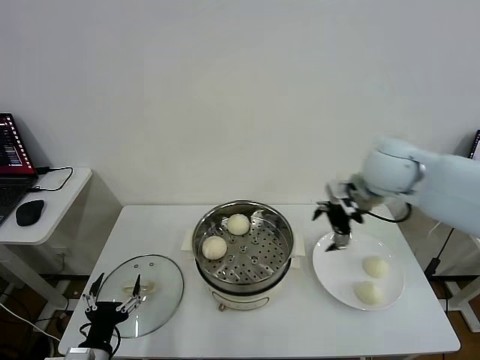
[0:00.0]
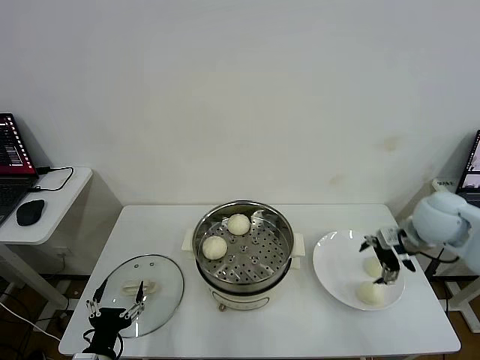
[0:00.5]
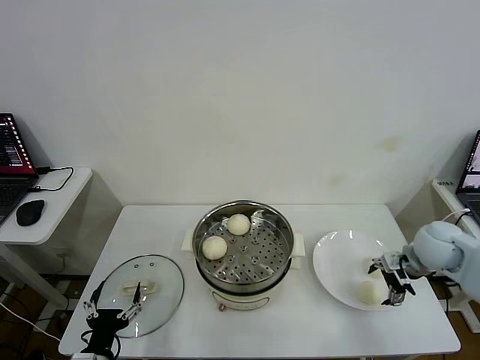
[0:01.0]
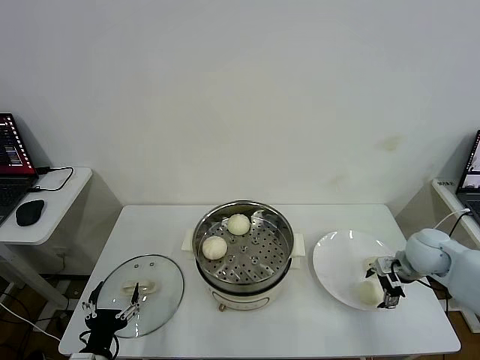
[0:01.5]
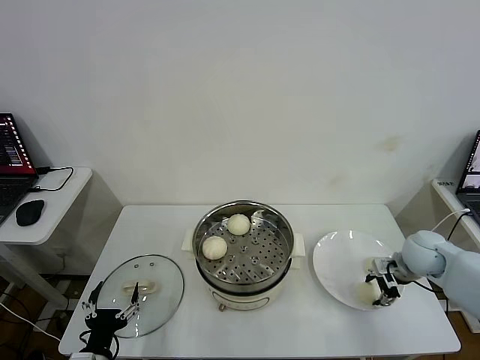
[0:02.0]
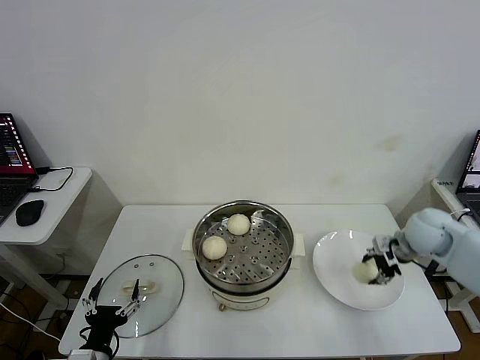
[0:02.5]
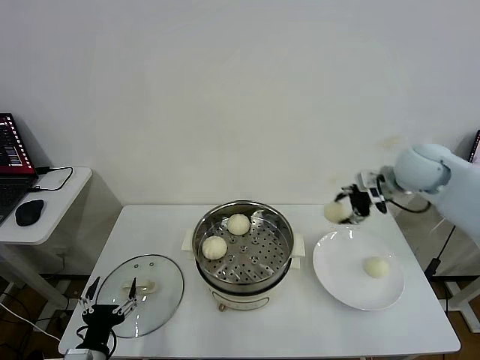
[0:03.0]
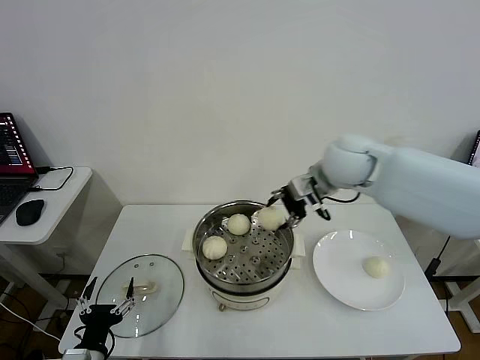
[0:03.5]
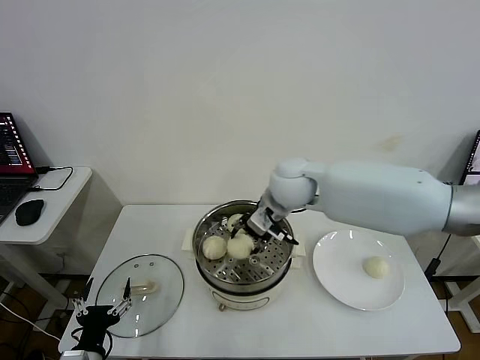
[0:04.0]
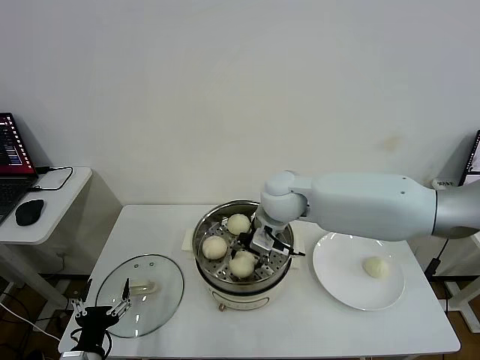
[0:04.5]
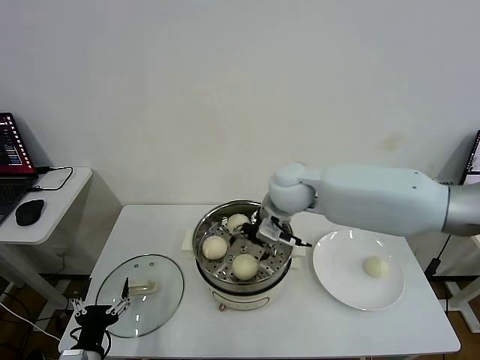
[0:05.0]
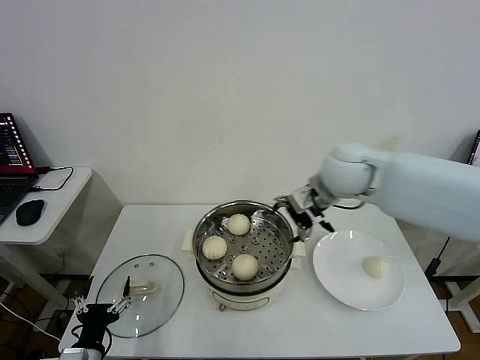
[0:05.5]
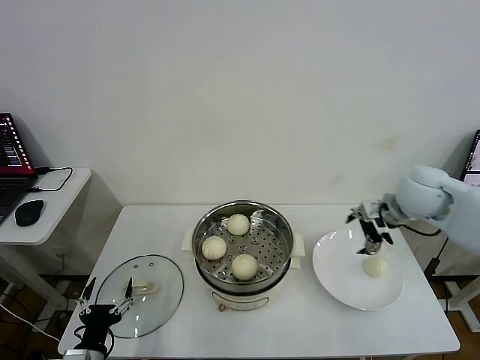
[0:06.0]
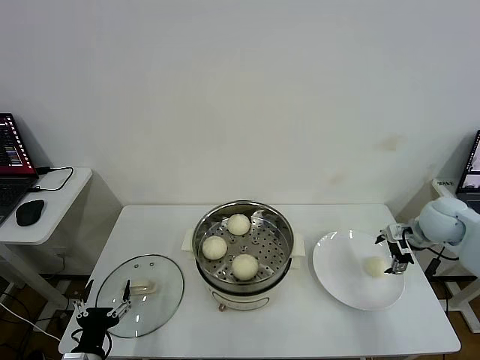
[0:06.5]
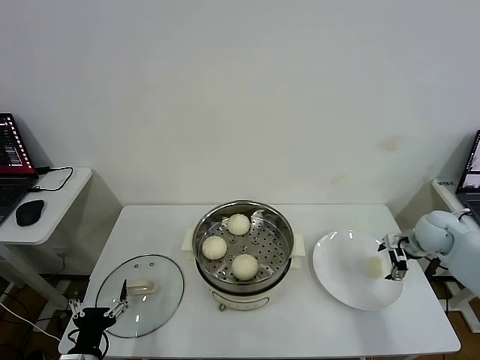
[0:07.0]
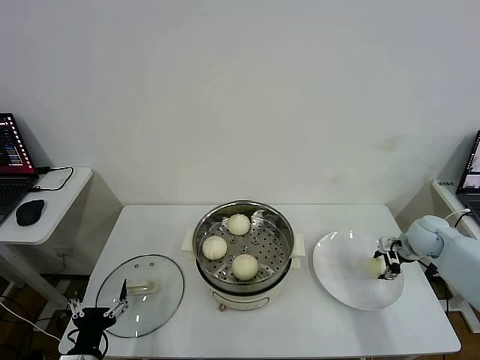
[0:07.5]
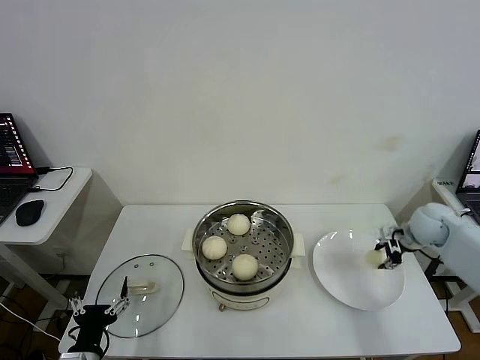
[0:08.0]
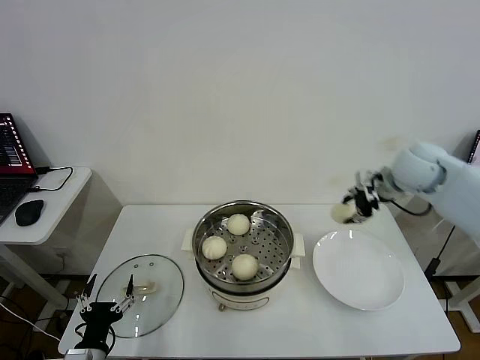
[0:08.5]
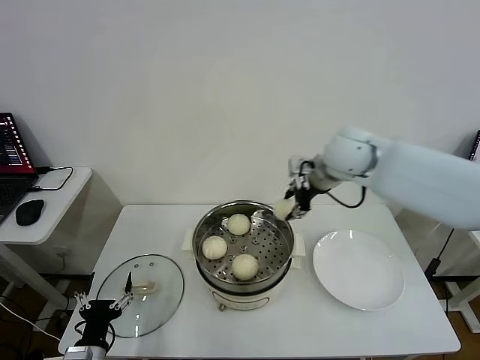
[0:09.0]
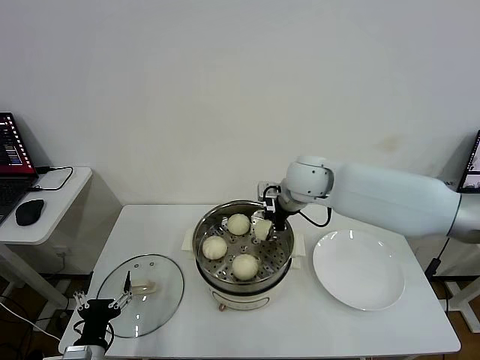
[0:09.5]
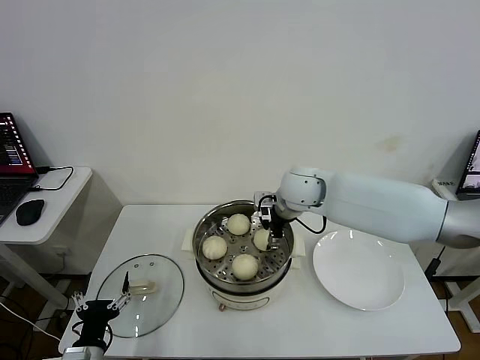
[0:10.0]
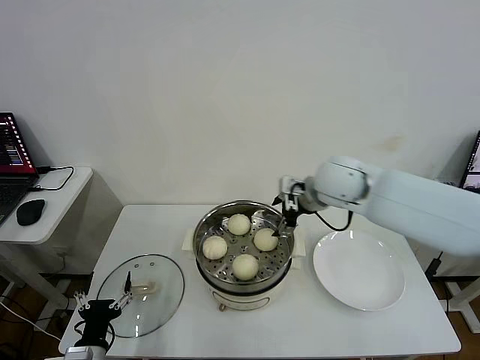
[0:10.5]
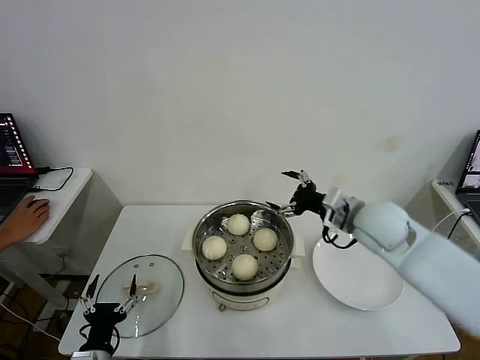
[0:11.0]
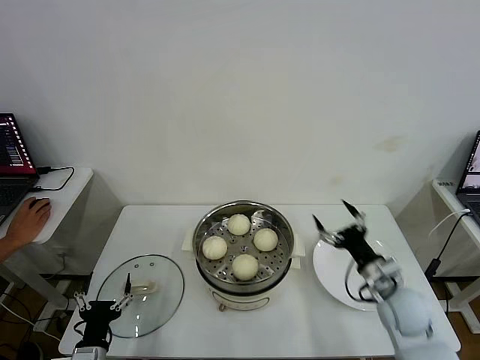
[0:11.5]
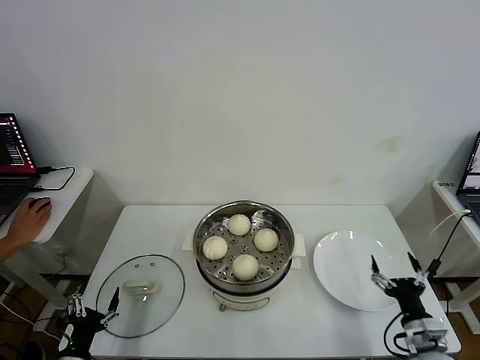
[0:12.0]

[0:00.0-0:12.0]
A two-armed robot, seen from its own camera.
Task of the whole recording: take steamed baozi put them in steamer then cover it.
Step, 0:00.0 to 0:02.0: Grasp the baozi in the plate with right gripper.
Step, 0:02.5 to 0:04.5: Place the baozi on the steamer with right gripper.
Step, 0:05.0 to 0:07.5: Grasp the baozi in the plate with right gripper.
Step, 0:08.0 to 0:10.0: Place the baozi on the steamer with right gripper.
0:00.0 to 0:02.0: The right gripper moves downward and to the right, roughly 25 cm, and closes.
0:02.0 to 0:04.0: The right gripper travels to the left and upward by some 35 cm.
0:04.0 to 0:06.0: The right gripper is displaced to the right by approximately 25 cm, and opens.
0:06.0 to 0:08.0: The right gripper heads downward and to the right, covering about 15 cm, and closes up.
0:08.0 to 0:10.0: The right gripper goes approximately 30 cm to the left, and opens its fingers.
0:10.0 to 0:12.0: The right gripper travels backward, to the right and downward by roughly 50 cm. The left gripper moves about 5 cm.

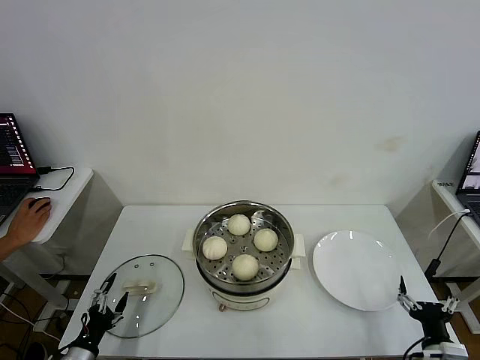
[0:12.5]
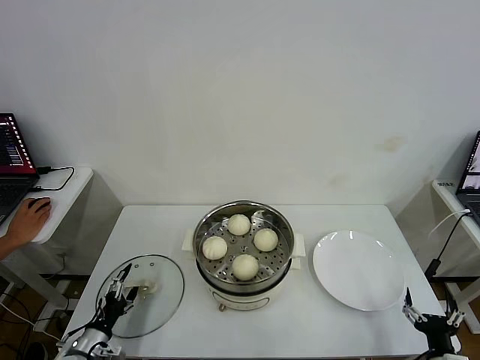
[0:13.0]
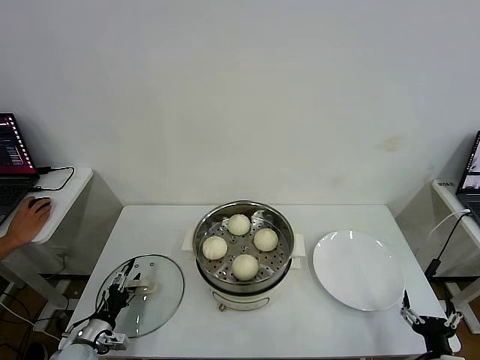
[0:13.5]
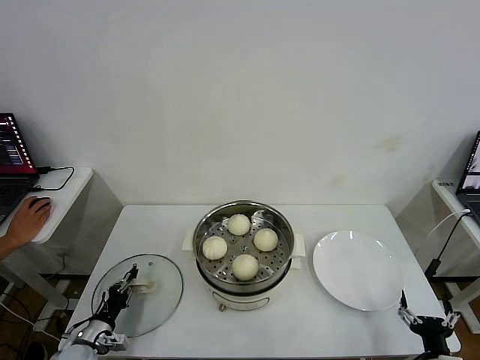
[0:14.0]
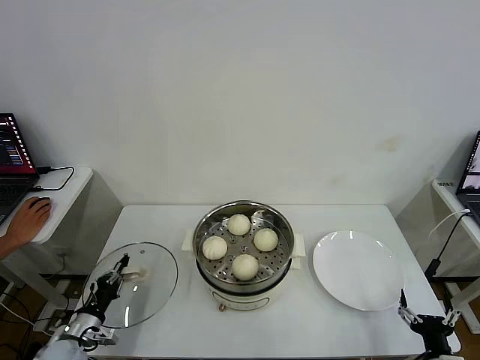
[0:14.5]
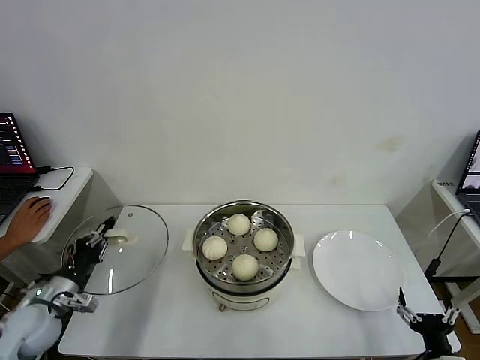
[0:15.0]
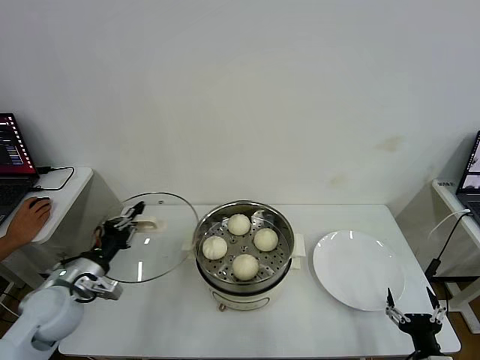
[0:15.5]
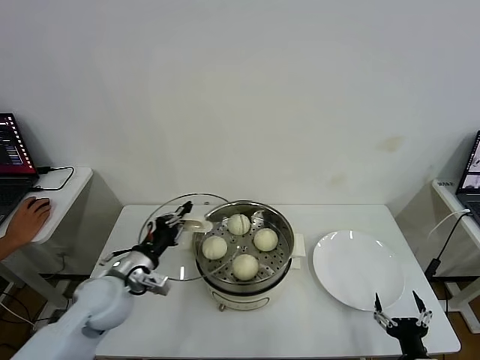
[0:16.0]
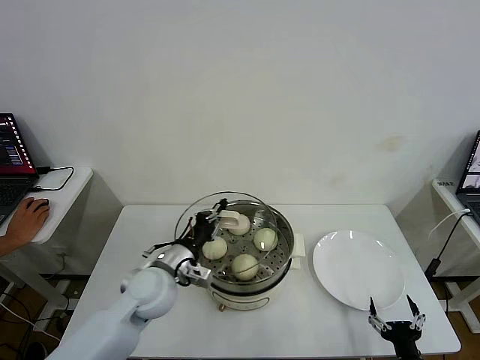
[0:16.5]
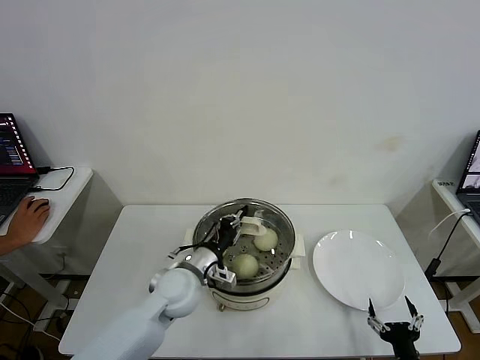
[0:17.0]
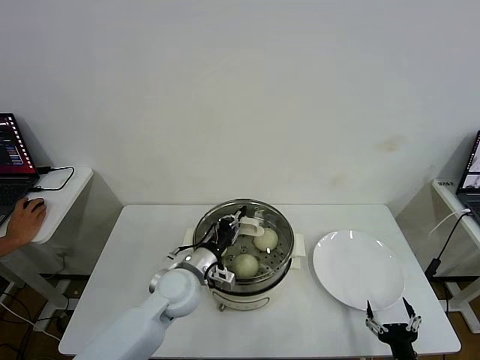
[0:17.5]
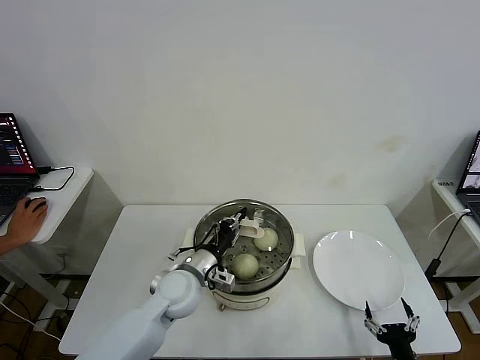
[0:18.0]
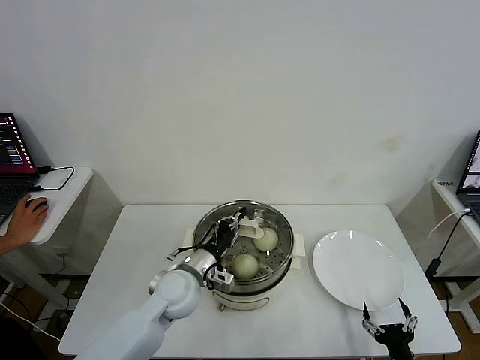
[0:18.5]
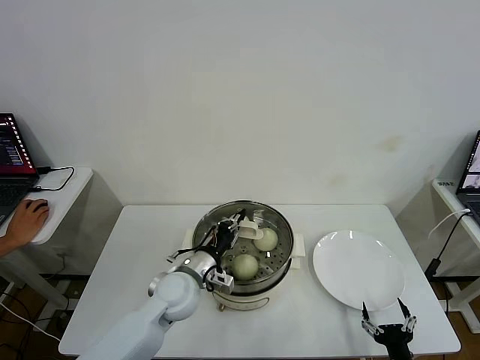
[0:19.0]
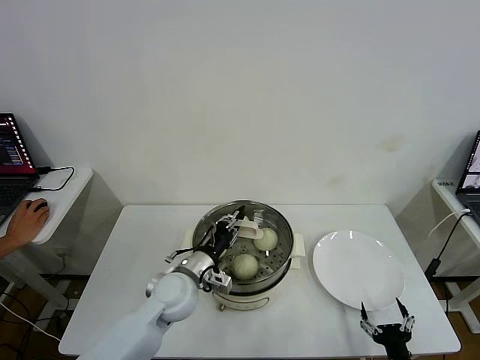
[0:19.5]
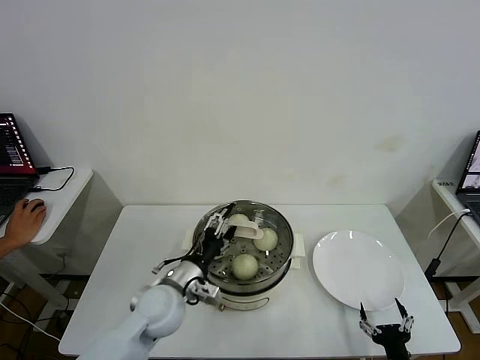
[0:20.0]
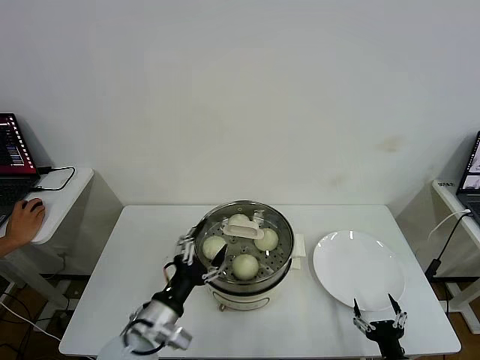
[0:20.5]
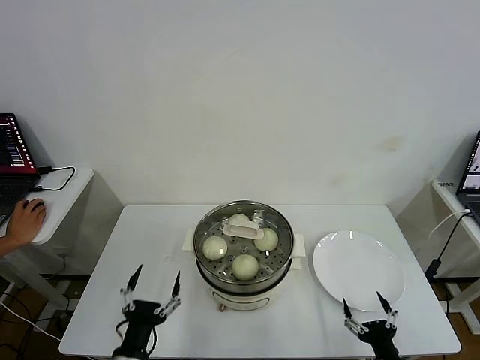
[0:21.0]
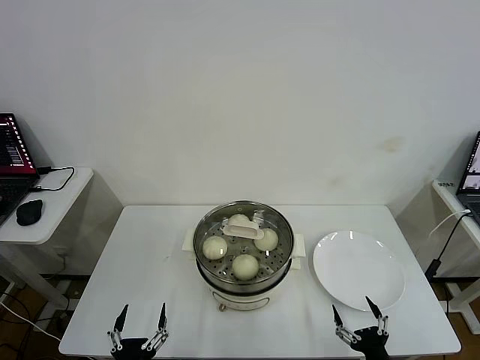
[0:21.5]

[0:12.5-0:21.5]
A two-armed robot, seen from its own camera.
Task of the whole recording: take steamed baozi put them in steamer then cover it.
Step, 0:14.5 to 0:20.0: Place the pot lid on the steamer with left gripper.
0:12.5 to 0:14.5: The left gripper goes about 10 cm forward, and closes its fingers.
0:14.5 to 0:17.0: The left gripper goes roughly 30 cm to the right and upward.
0:17.0 to 0:19.5: The grippers move only a little.
0:19.5 to 0:21.5: The left gripper goes about 25 cm backward, and opens.

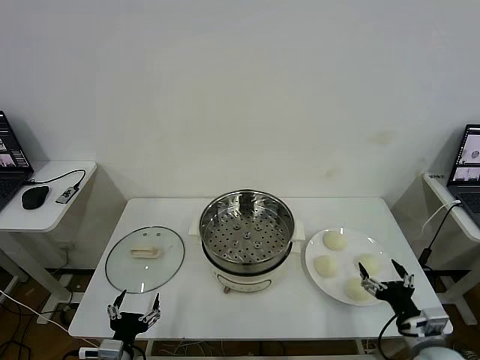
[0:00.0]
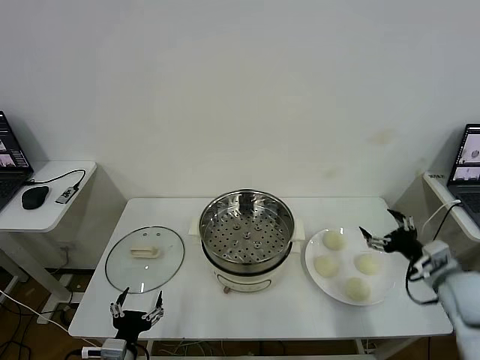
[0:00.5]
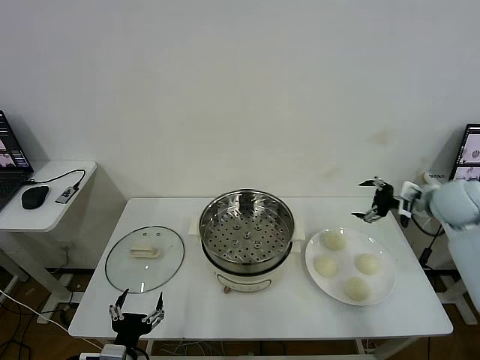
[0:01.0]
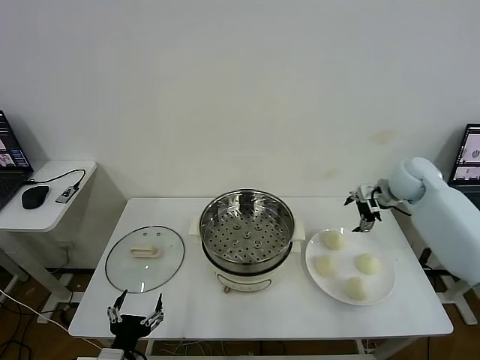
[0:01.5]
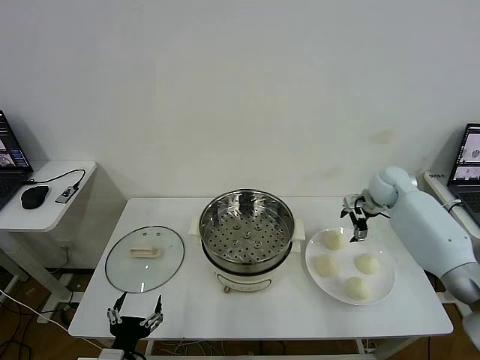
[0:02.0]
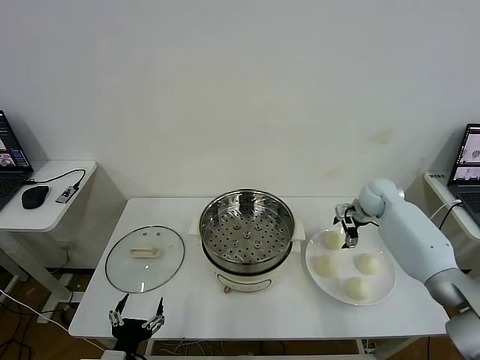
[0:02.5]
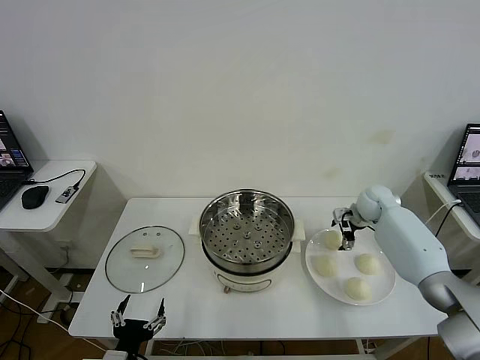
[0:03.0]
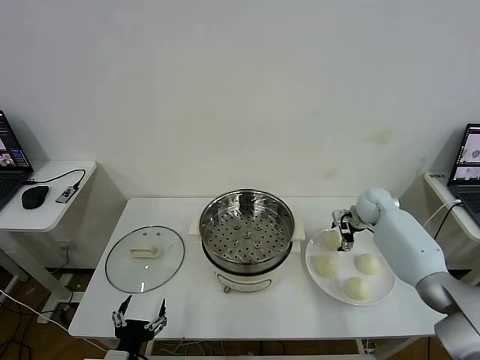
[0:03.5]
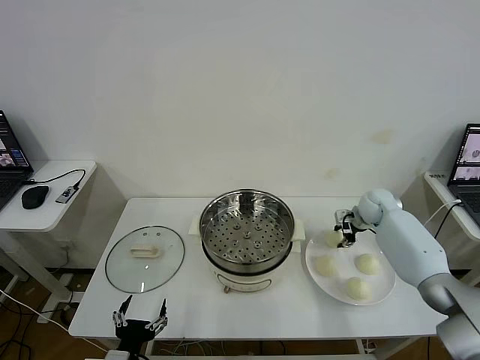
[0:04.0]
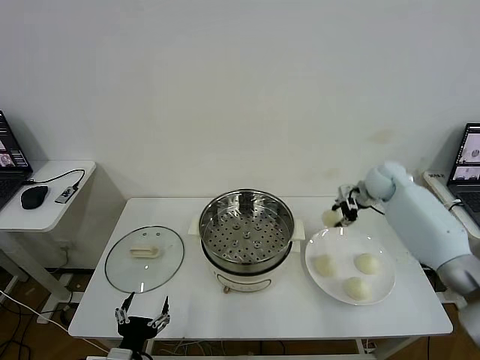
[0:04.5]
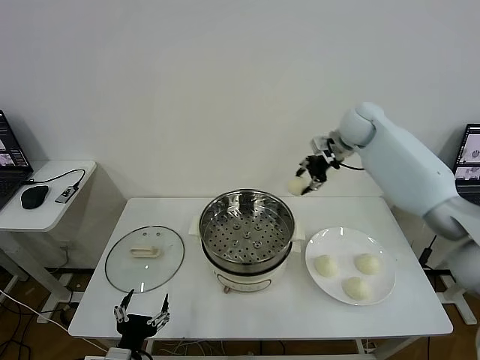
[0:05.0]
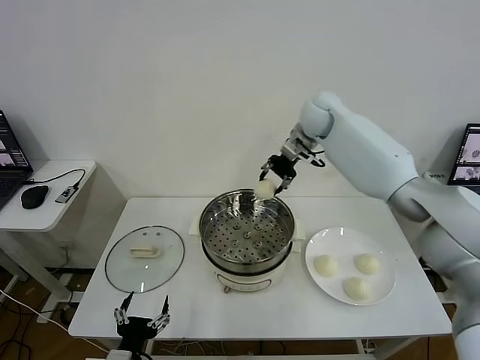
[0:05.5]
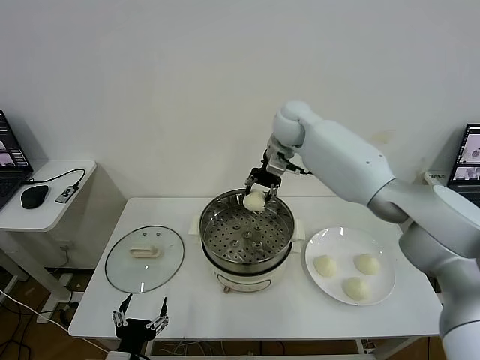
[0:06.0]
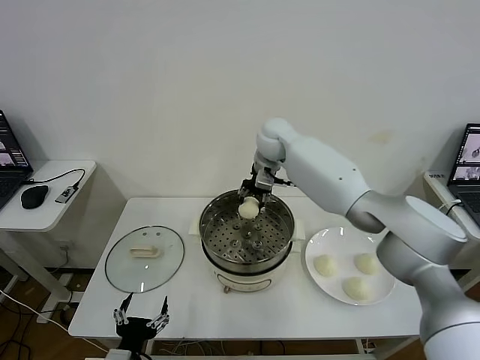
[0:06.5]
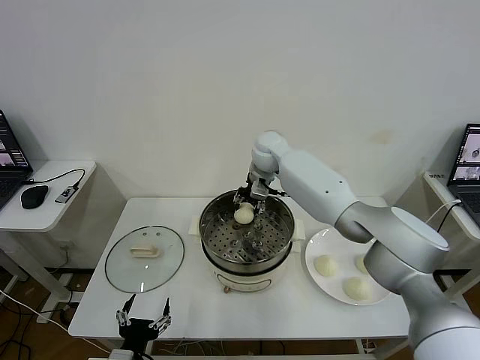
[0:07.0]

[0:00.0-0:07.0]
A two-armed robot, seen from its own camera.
Task of the whole recording: take steamed baozi put them in steamer then cover it.
Step, 0:00.0 to 0:04.0: Grasp the baozi in the plate with right gripper.
0:02.0 to 0:03.5: The right gripper goes approximately 10 cm downward.
0:03.5 to 0:05.0: The right gripper heads upward and to the left, covering roughly 25 cm, and closes.
0:05.0 to 0:07.0: The right gripper shifts approximately 20 cm to the left.
